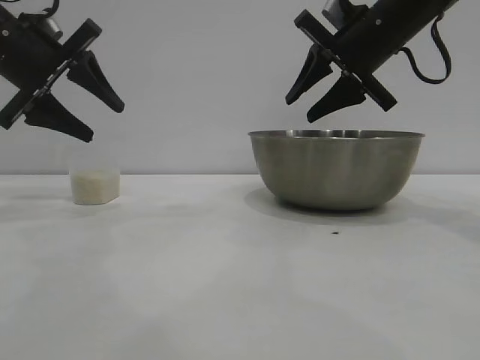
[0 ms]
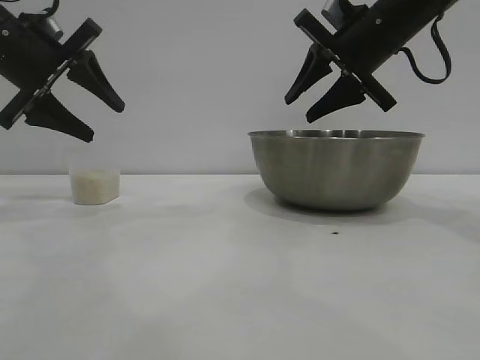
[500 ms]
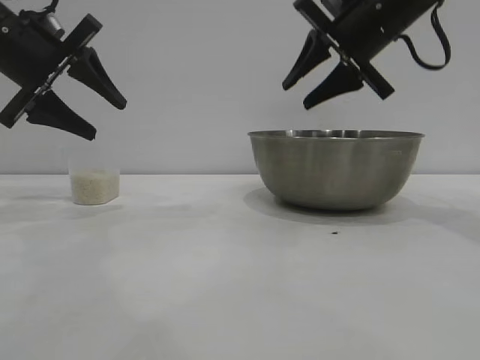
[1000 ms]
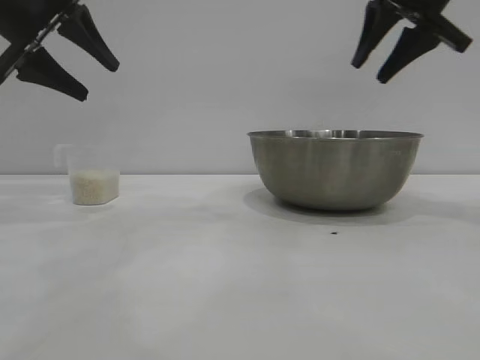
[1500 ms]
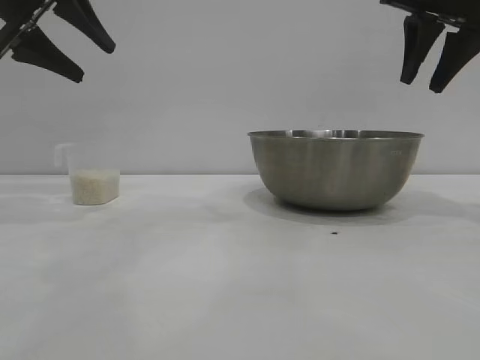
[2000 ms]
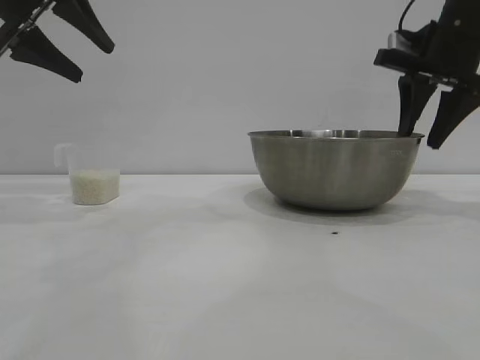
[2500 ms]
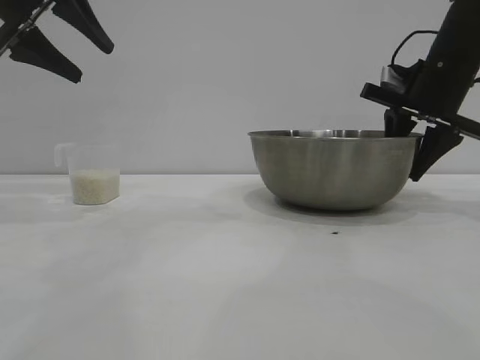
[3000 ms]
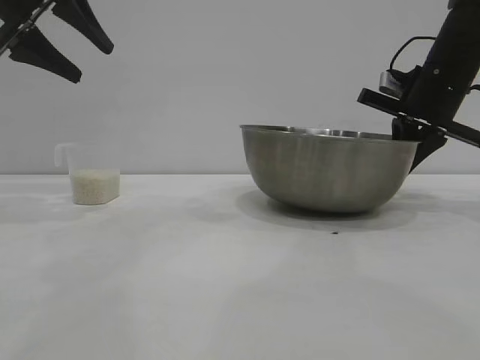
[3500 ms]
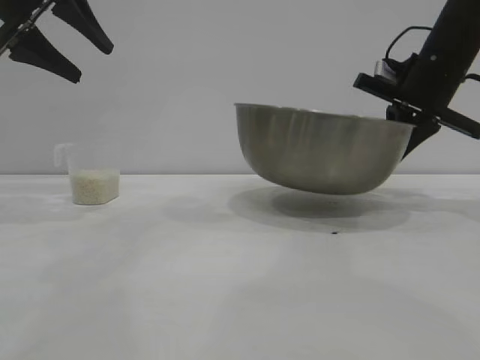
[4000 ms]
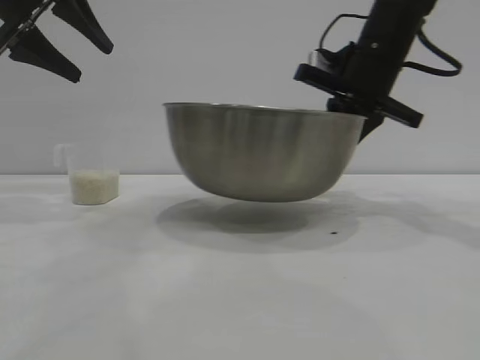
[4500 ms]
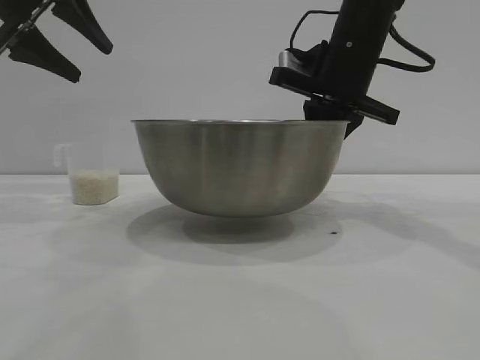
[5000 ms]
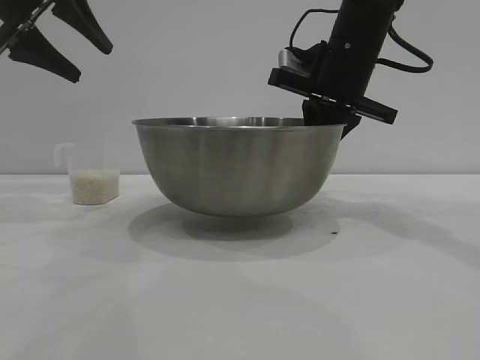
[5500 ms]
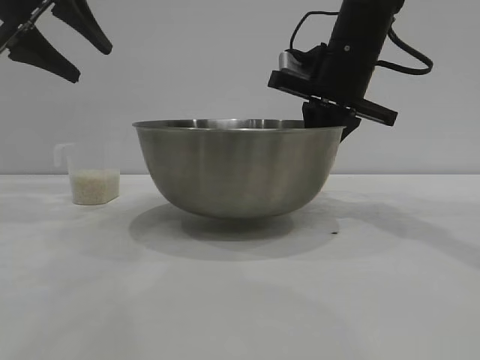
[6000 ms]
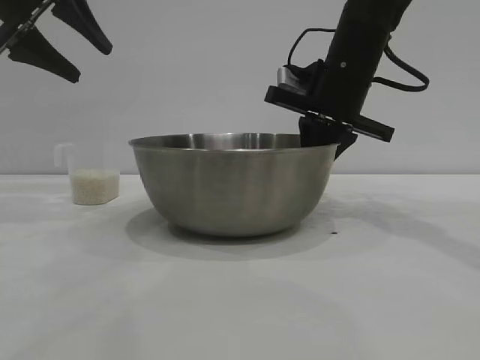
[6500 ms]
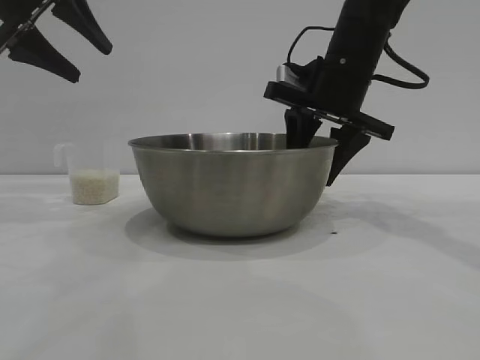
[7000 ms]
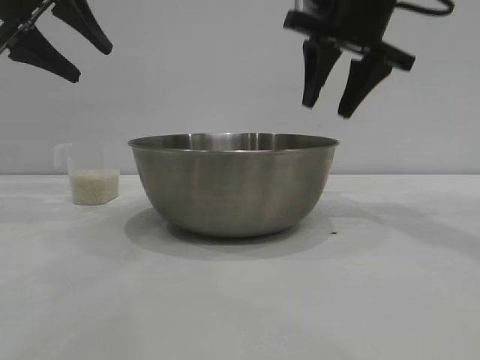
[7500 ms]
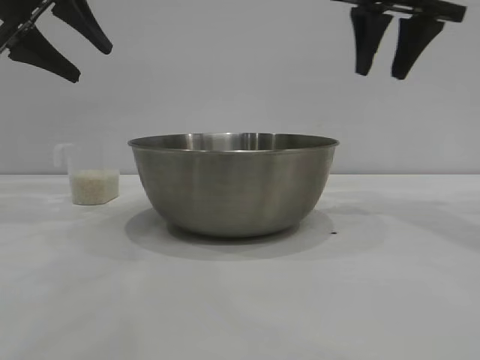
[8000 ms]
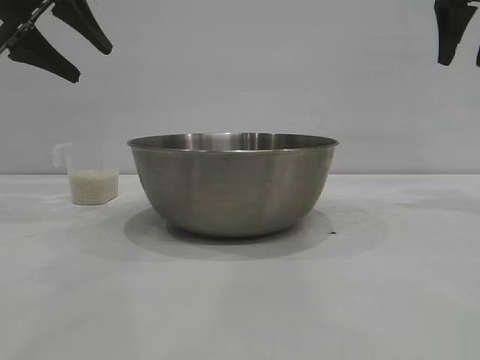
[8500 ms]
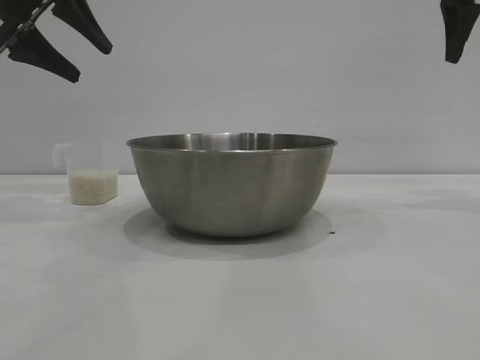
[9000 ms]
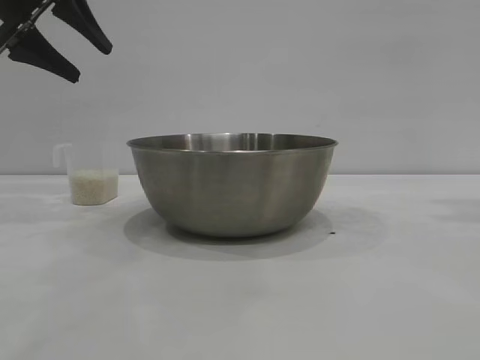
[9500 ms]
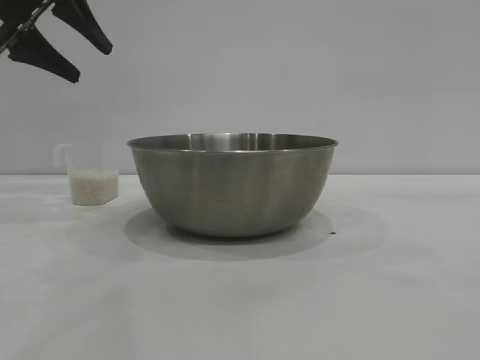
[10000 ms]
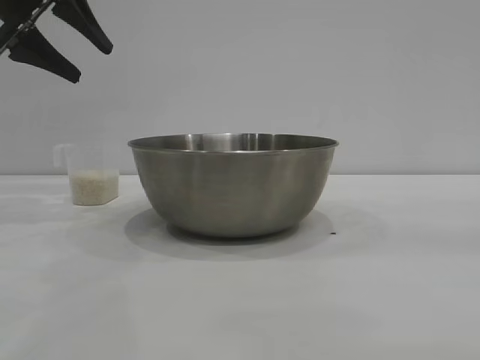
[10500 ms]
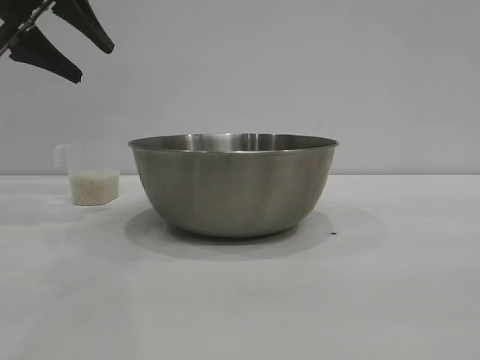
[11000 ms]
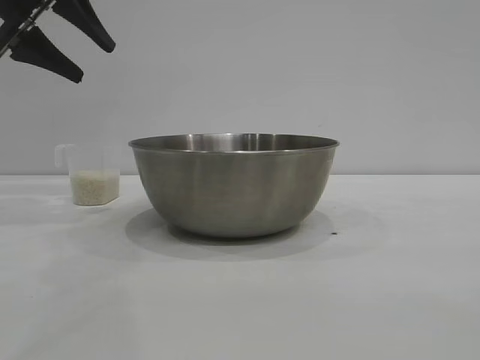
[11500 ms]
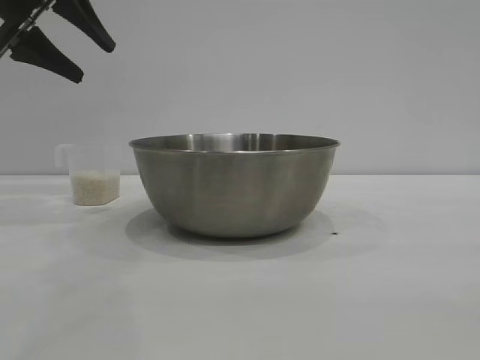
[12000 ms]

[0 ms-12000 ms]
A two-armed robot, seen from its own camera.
Task of the whole recording: the right gripper grasp the rice container and place it in the center of the table, the left gripper grasp the rice scoop and pour the rice into the rice container.
Step, 0 ms to 4000 ms: Pick up the bowl with the right gripper.
Step, 4500 ms to 7000 ms: Place the bowl in the center of view with the right gripper.

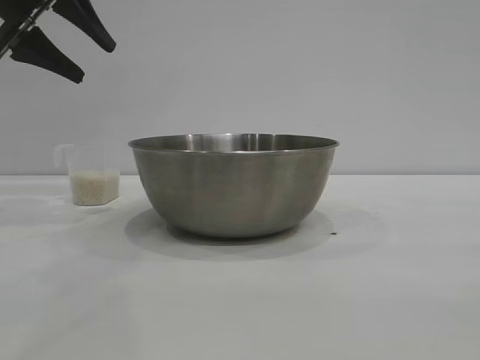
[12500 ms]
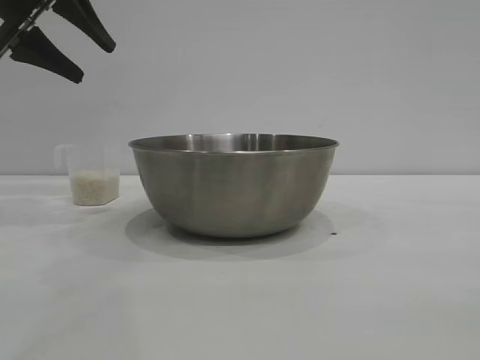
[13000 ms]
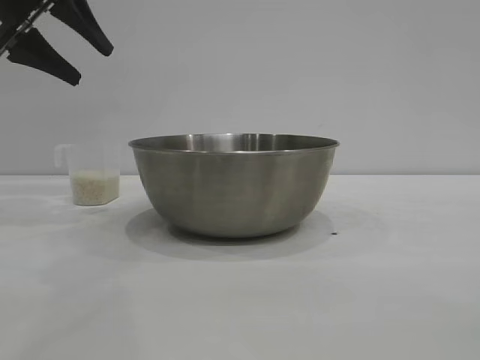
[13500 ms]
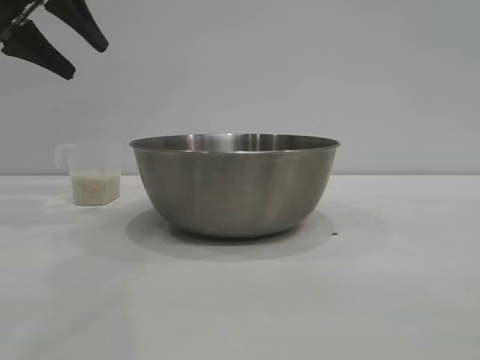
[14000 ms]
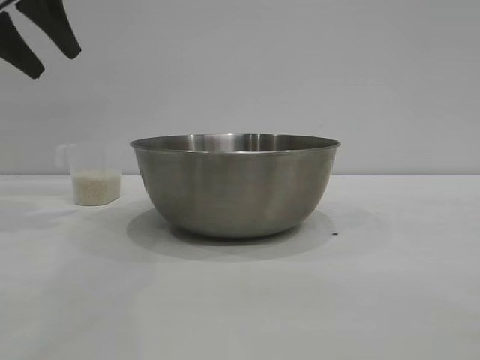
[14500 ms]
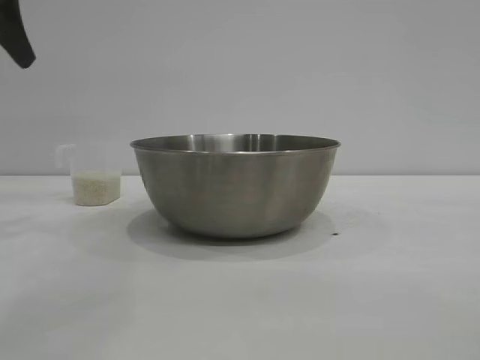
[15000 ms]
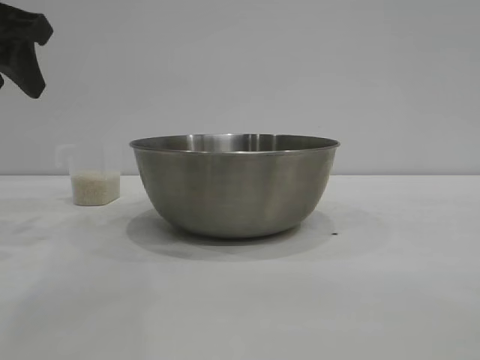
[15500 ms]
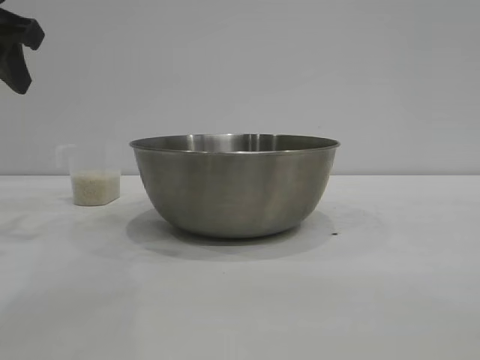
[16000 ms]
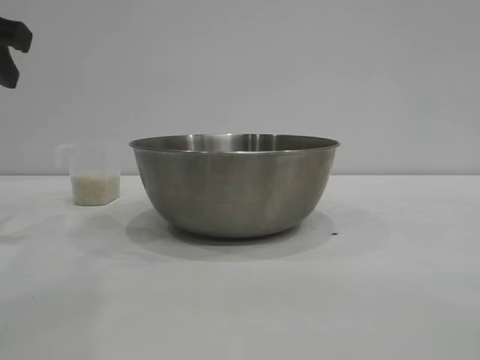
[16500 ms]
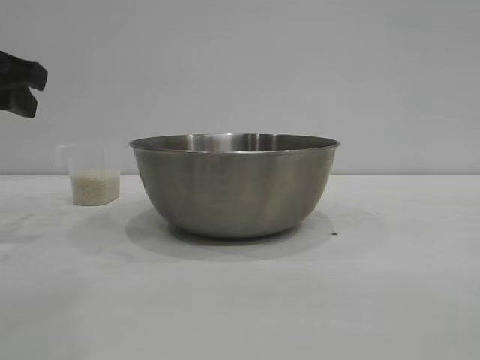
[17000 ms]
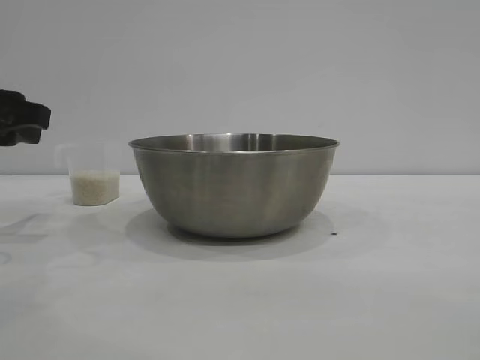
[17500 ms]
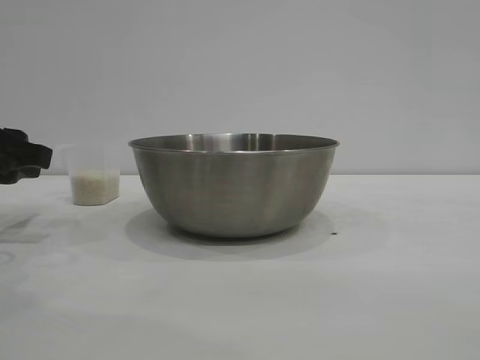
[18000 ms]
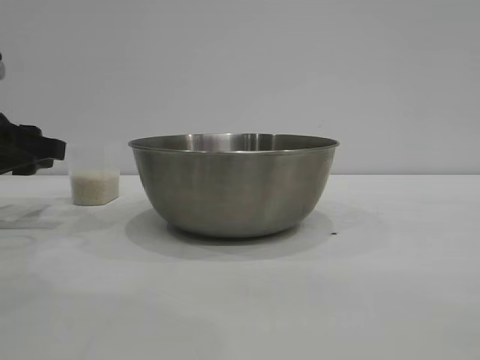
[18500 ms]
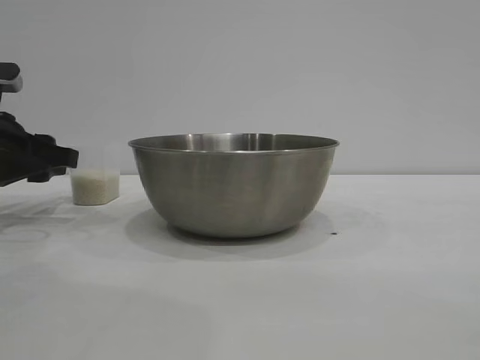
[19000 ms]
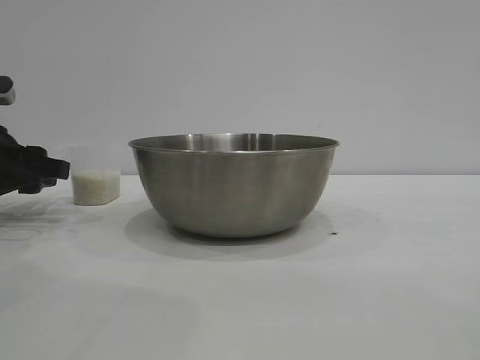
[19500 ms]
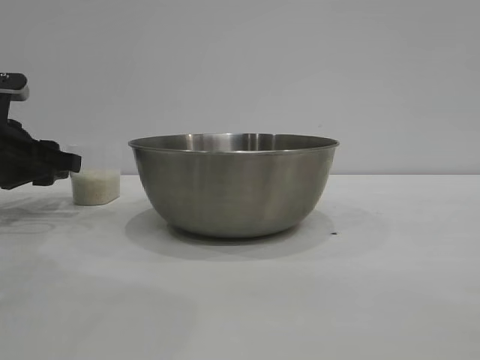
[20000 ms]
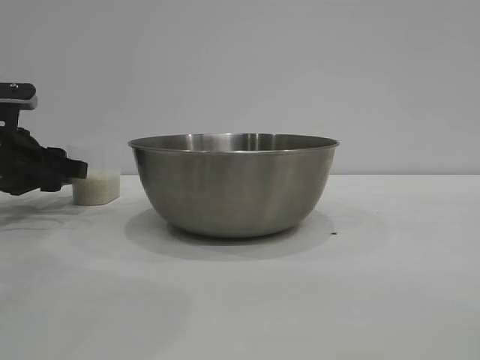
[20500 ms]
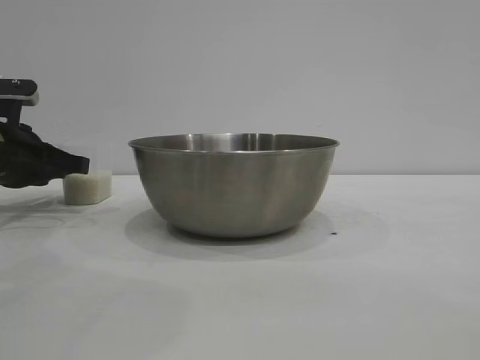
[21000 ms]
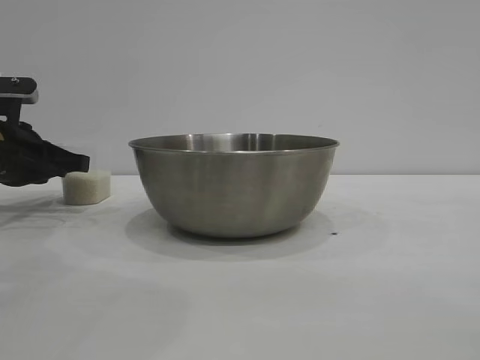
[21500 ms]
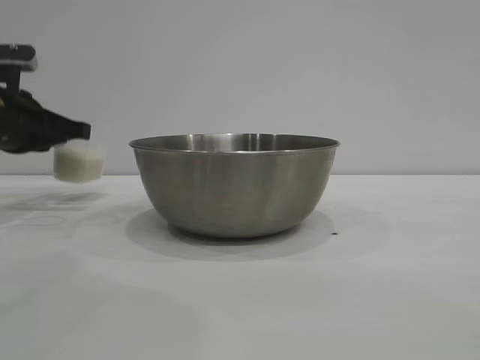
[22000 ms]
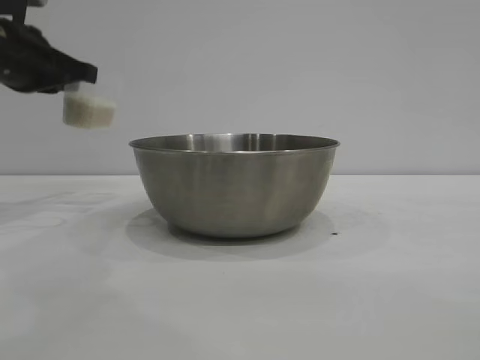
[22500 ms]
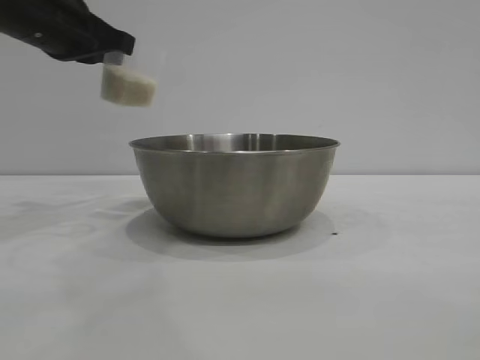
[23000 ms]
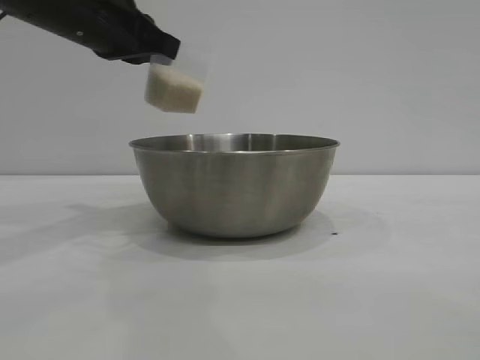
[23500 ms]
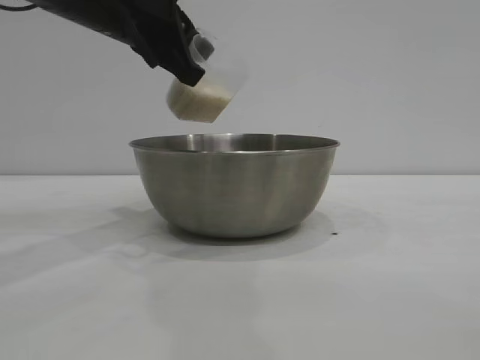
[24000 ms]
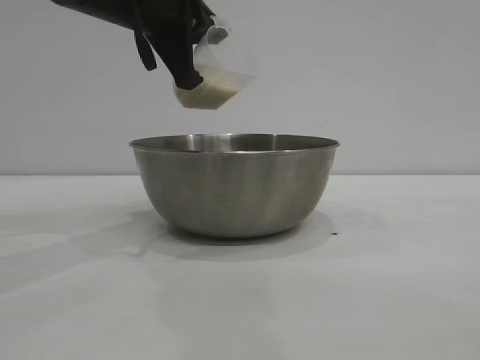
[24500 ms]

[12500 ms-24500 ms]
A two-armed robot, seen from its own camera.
Task of the whole recording: the right gripper grasp the rice container and place it in the center of the table, the left gripper grasp the rice scoop and pour the rice into the rice container.
Step, 12500 ms to 22000 ms: Pick up the cup with rice in it with the left gripper.

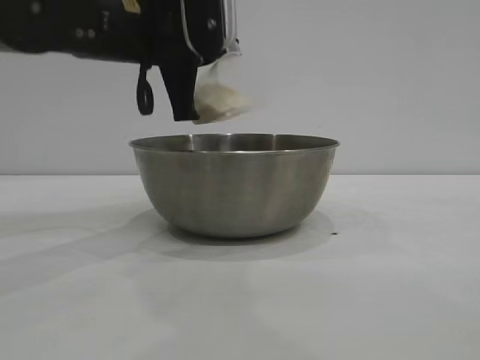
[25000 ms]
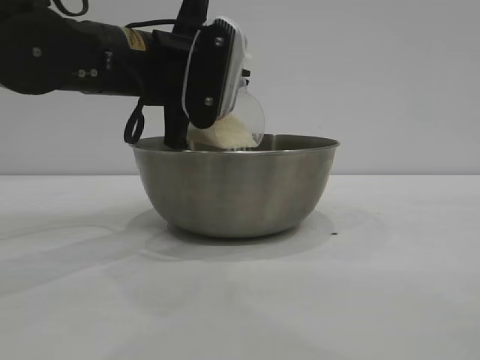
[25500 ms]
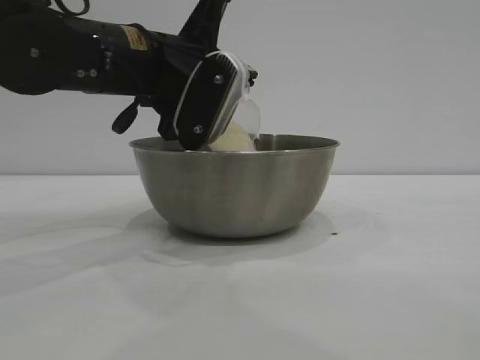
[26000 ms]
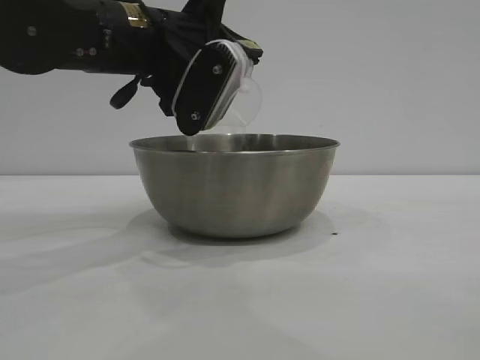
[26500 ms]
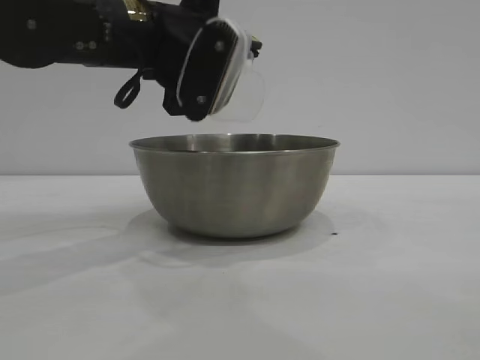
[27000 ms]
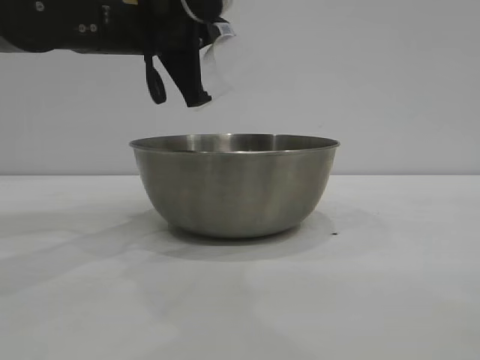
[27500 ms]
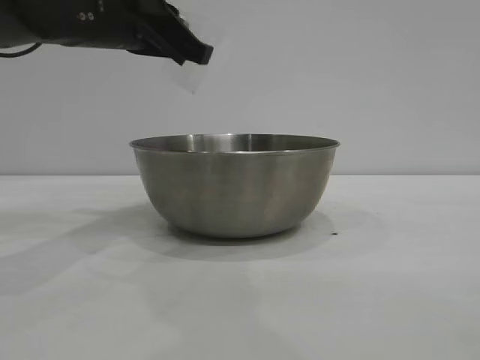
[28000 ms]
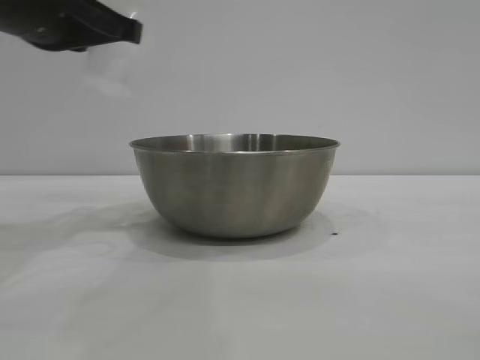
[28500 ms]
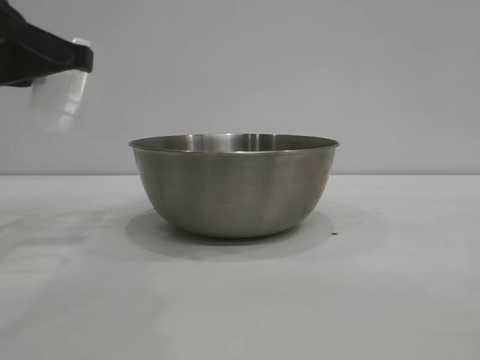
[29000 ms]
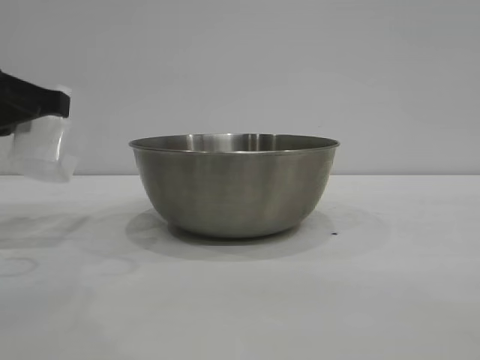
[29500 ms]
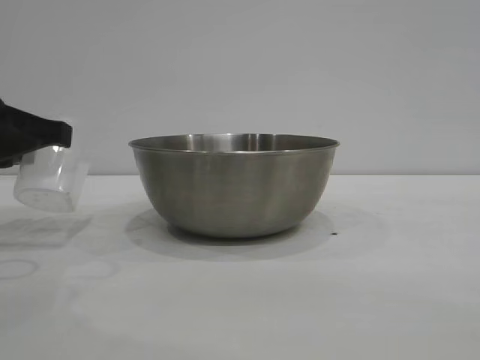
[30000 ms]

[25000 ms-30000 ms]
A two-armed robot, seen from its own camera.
Task of the whole recording: the right gripper grasp the rice container and place it in the center of the table, the left gripper grasp the rice scoop and pour the rice into the rice container.
Step, 25000 ms to 28000 ms: Pour the rice from the cup into the bowl with the left gripper.
